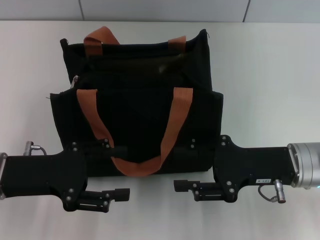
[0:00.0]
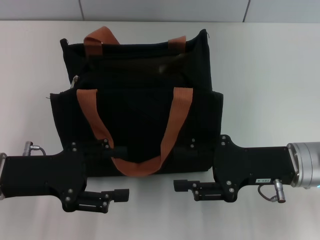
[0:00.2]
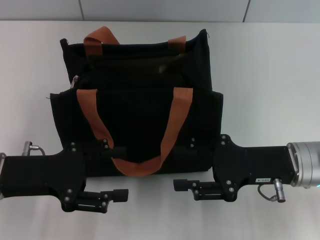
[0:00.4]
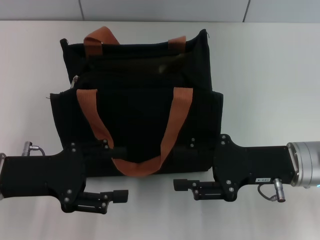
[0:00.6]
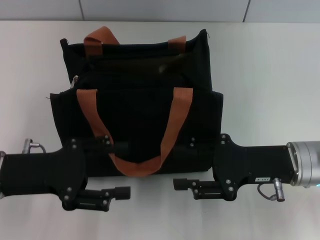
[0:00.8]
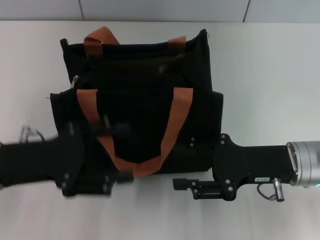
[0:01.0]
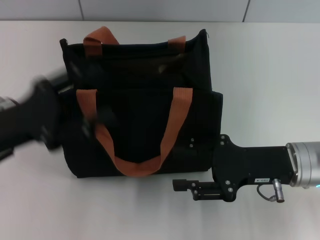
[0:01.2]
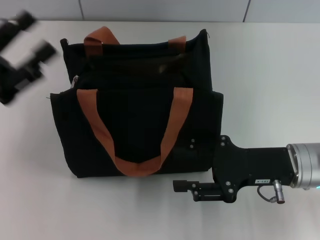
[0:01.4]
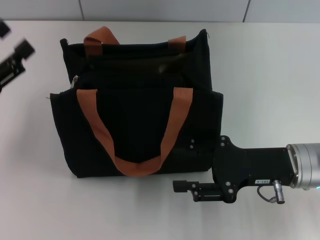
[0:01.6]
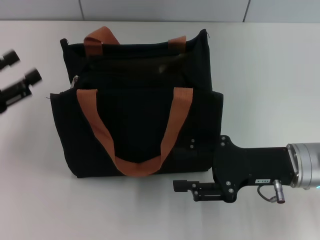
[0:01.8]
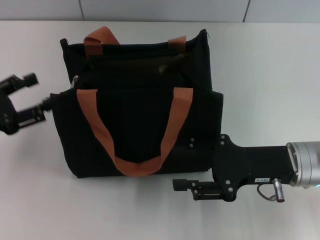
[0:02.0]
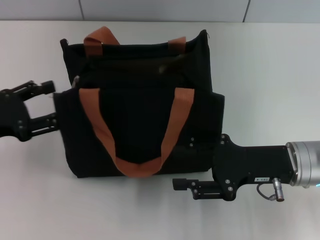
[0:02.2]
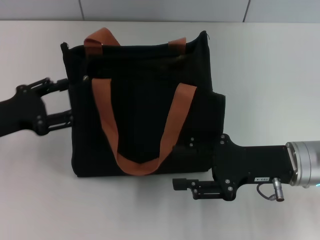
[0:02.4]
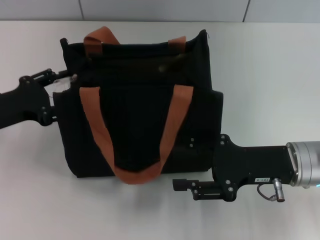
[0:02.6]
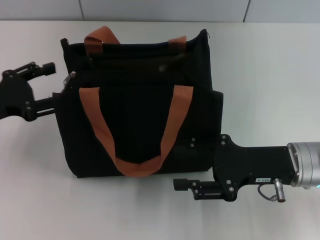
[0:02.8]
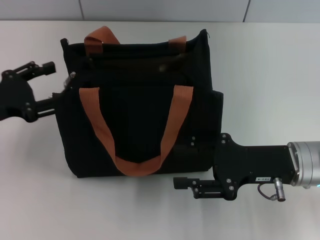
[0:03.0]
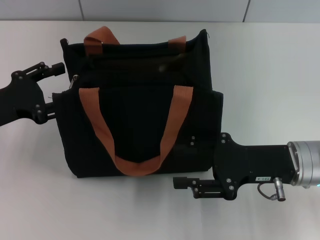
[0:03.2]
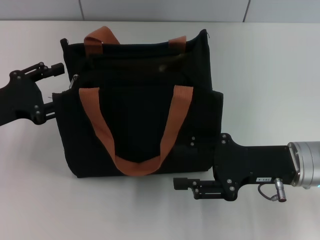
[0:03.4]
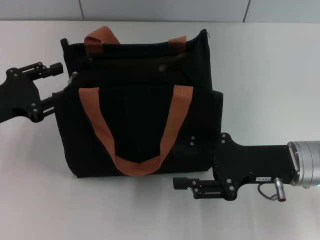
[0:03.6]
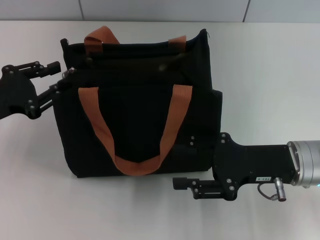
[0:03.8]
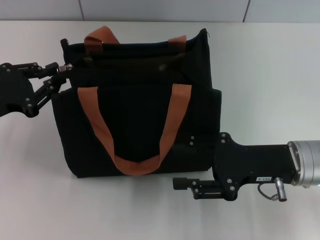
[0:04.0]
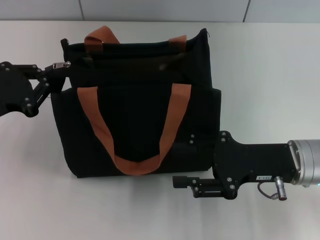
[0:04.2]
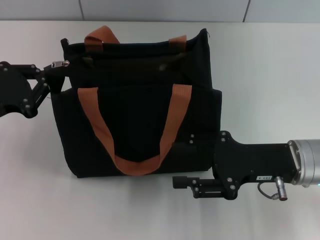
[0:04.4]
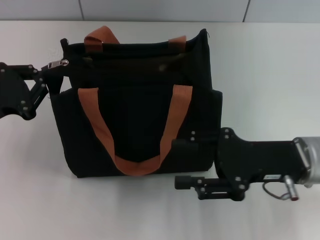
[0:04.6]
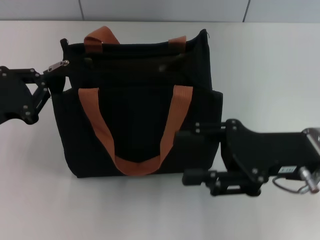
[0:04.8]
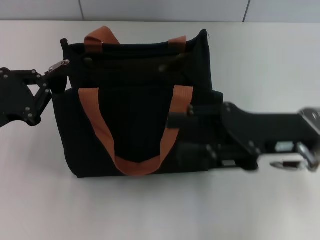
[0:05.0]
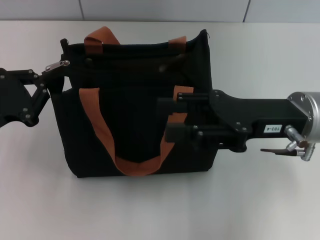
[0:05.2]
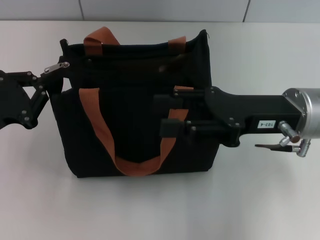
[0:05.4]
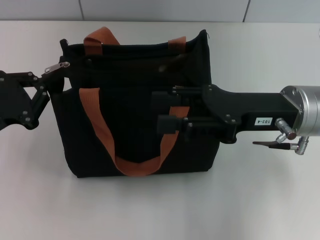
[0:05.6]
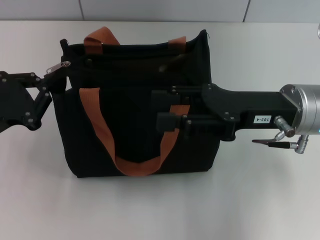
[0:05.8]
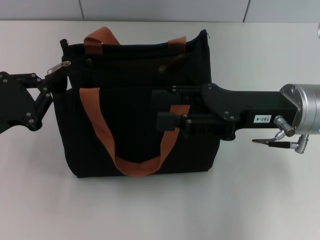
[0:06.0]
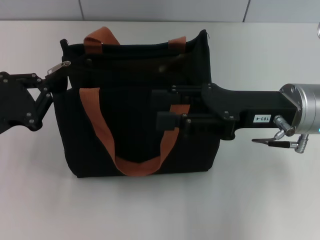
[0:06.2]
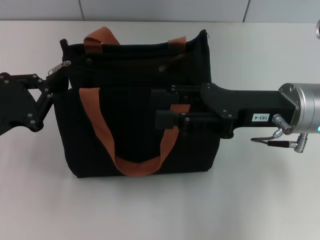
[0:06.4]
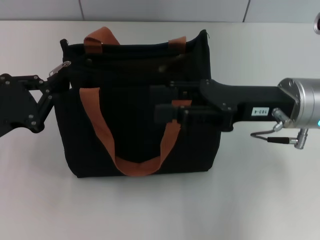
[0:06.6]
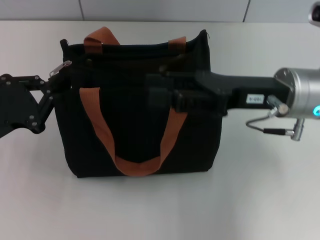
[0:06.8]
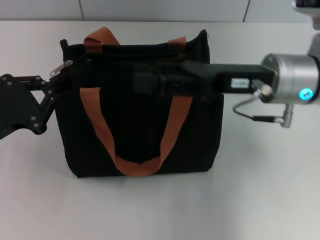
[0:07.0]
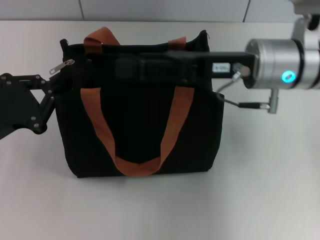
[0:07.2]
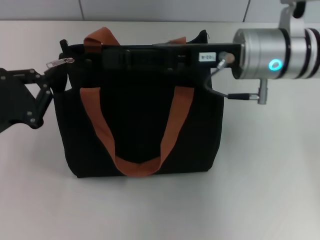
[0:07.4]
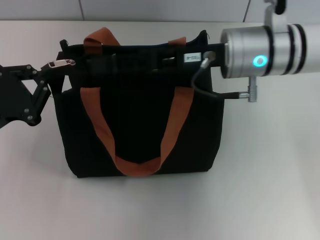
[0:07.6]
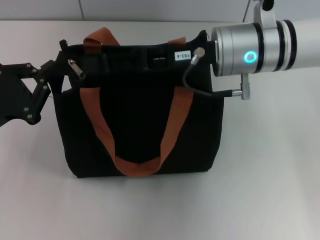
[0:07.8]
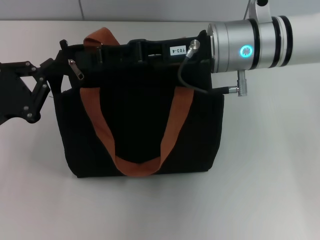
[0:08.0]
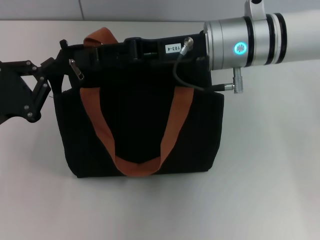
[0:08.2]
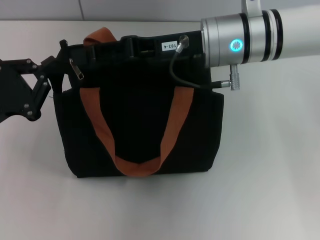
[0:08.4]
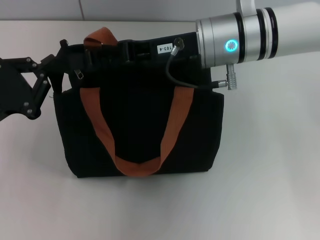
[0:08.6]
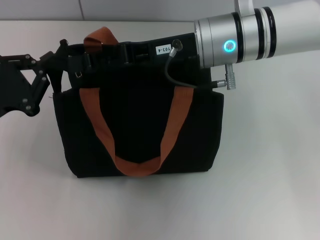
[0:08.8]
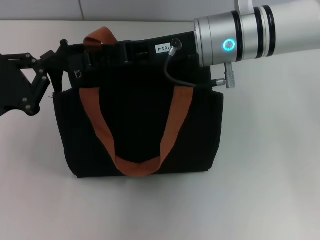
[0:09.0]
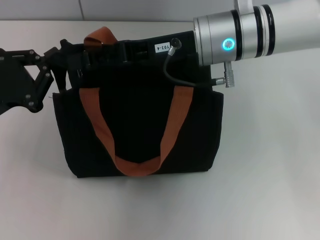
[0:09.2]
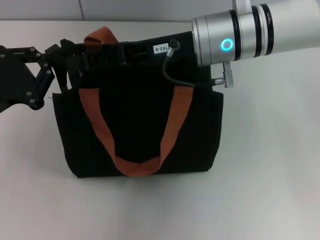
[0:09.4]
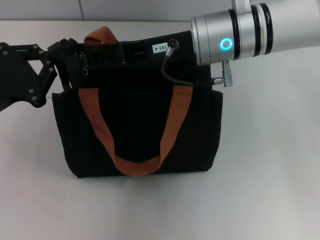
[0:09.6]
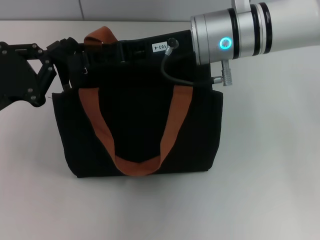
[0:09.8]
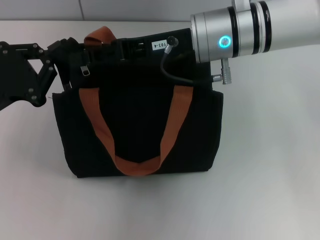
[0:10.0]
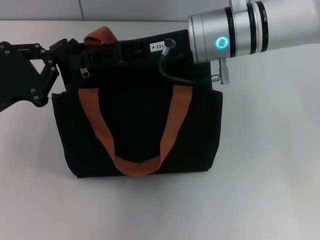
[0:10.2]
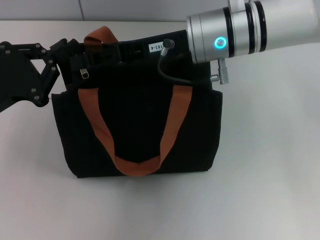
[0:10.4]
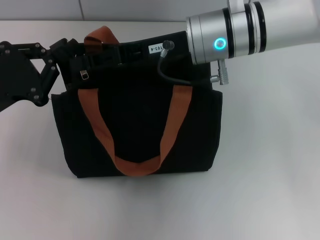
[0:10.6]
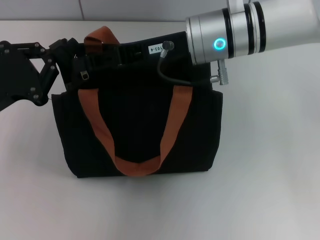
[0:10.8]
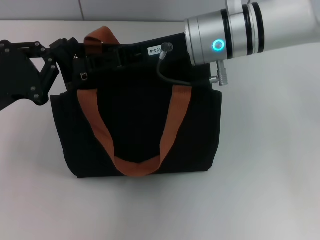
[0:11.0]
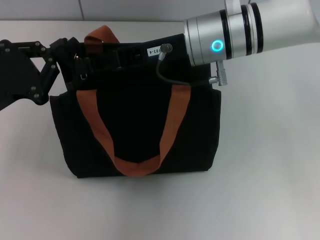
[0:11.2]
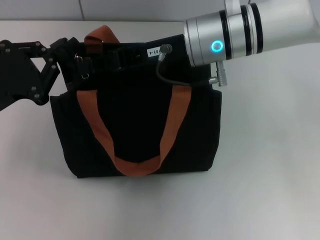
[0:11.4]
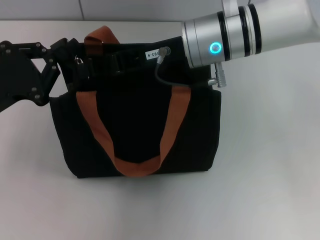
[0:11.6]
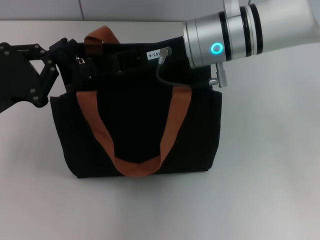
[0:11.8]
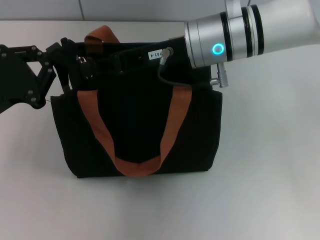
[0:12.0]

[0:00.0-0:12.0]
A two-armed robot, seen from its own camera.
0:00.0 to 0:01.6: The left gripper goes roughly 5 cm to the left.
0:03.0 to 0:04.4: The left gripper closes.
0:04.4 to 0:06.0: The right gripper moves upward, some 5 cm.
0:06.0 to 0:07.6: The right gripper is displaced to the left and forward by some 10 cm.
0:07.6 to 0:10.4: The grippers make only small movements.
0:10.4 to 0:12.0: The right gripper closes up.

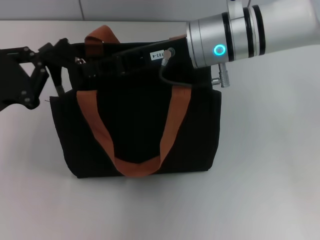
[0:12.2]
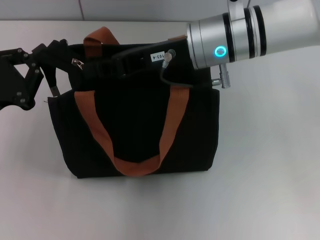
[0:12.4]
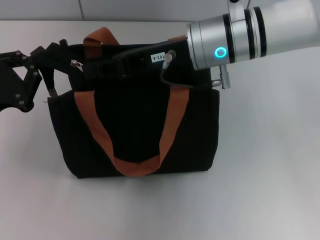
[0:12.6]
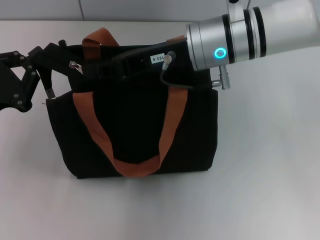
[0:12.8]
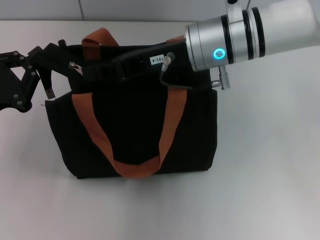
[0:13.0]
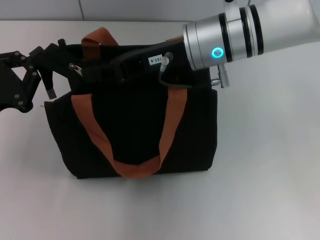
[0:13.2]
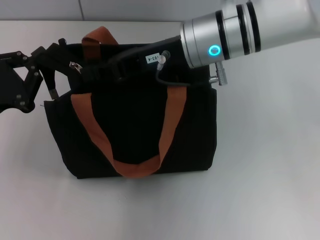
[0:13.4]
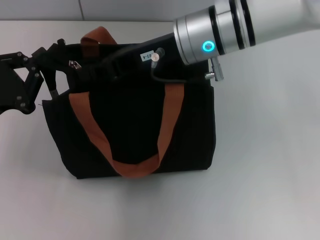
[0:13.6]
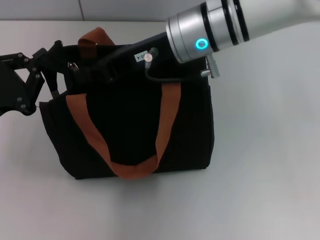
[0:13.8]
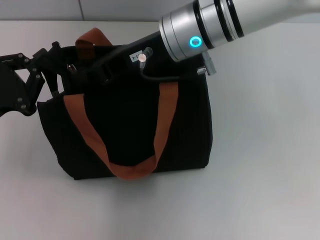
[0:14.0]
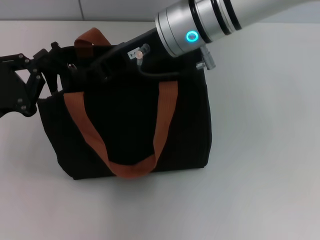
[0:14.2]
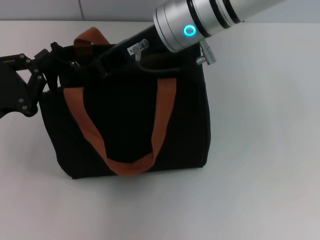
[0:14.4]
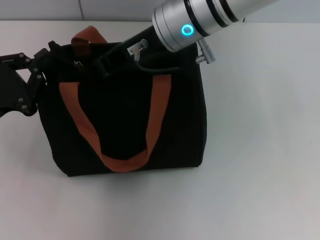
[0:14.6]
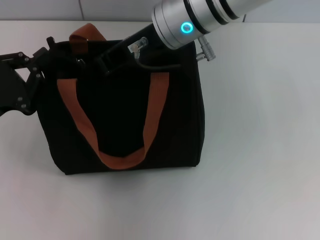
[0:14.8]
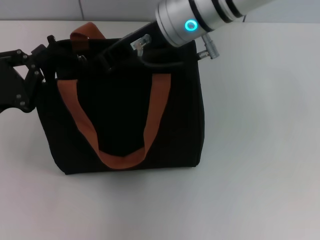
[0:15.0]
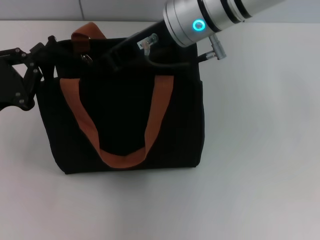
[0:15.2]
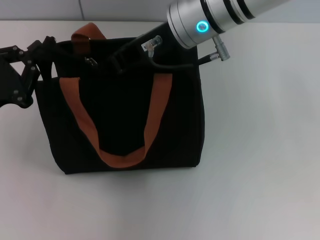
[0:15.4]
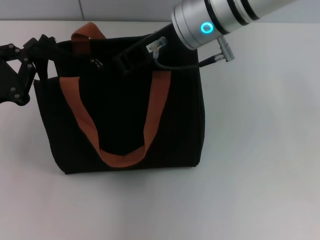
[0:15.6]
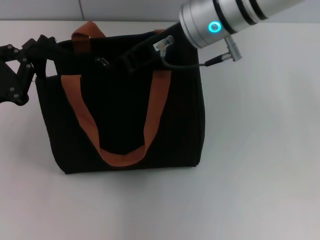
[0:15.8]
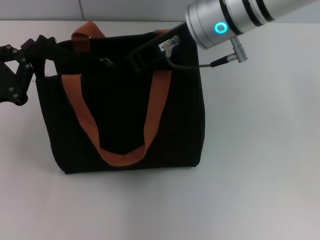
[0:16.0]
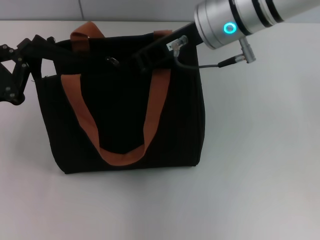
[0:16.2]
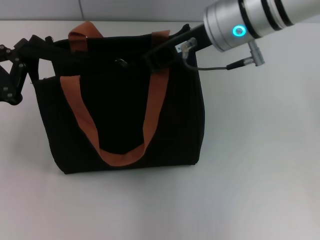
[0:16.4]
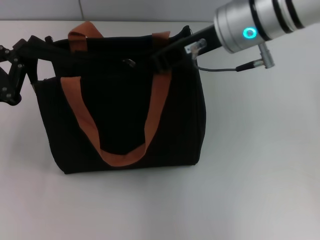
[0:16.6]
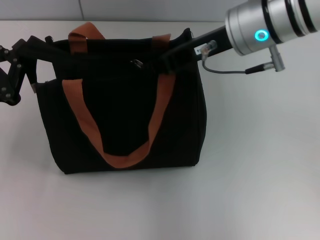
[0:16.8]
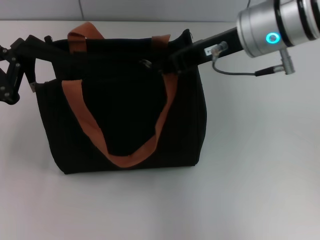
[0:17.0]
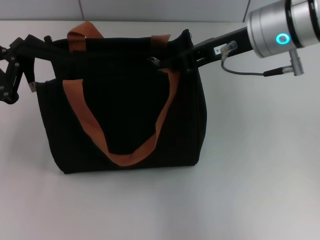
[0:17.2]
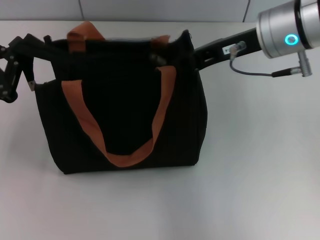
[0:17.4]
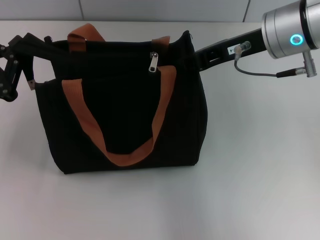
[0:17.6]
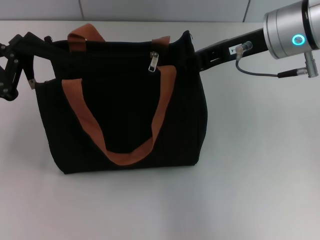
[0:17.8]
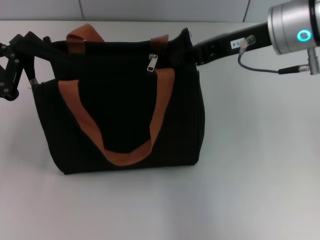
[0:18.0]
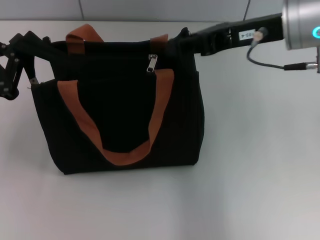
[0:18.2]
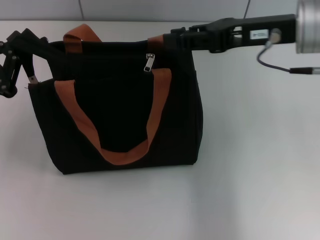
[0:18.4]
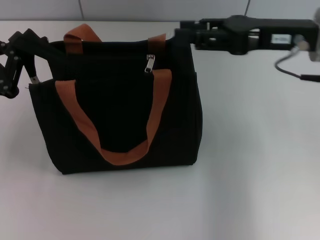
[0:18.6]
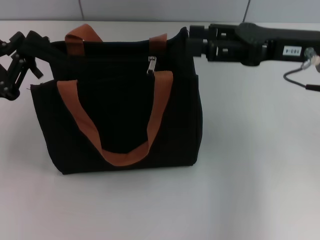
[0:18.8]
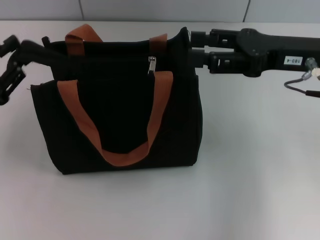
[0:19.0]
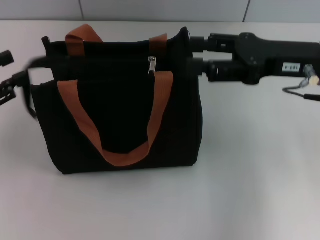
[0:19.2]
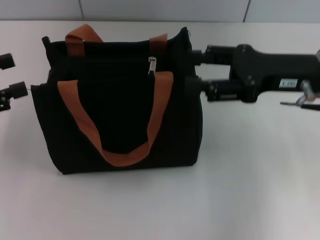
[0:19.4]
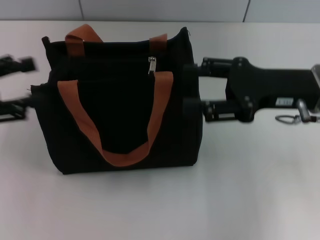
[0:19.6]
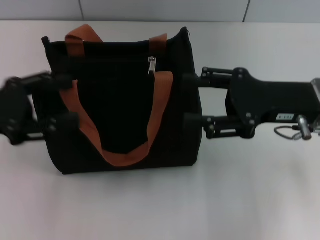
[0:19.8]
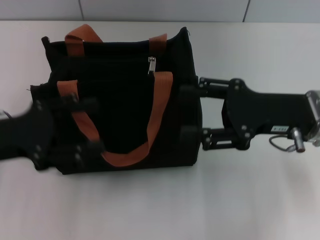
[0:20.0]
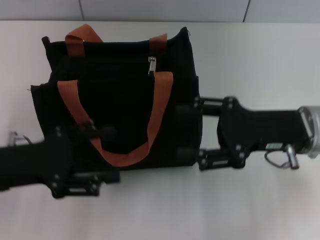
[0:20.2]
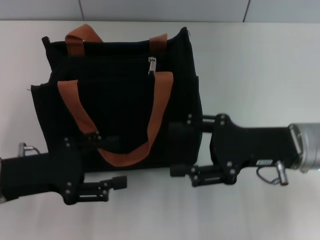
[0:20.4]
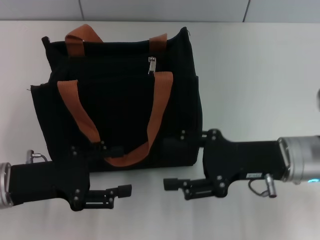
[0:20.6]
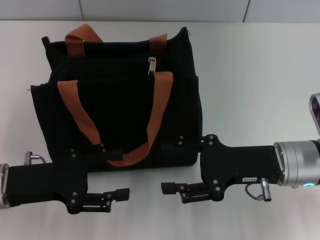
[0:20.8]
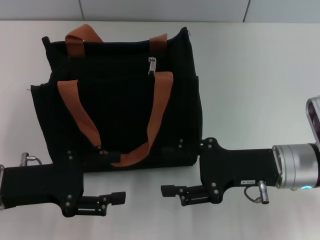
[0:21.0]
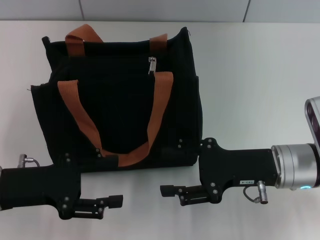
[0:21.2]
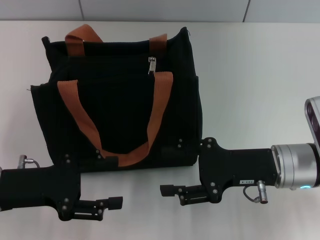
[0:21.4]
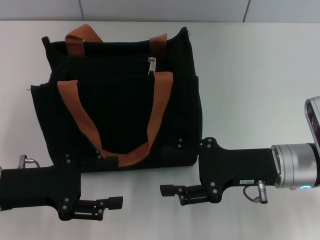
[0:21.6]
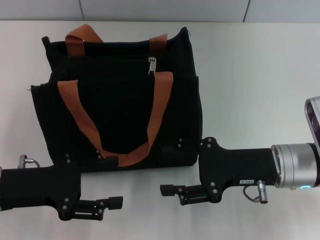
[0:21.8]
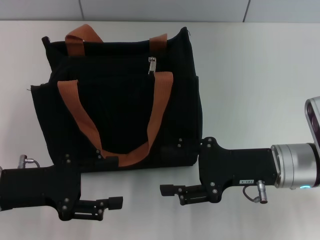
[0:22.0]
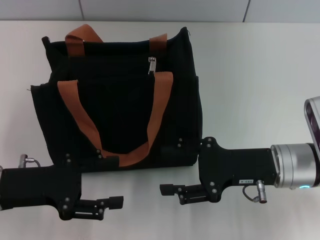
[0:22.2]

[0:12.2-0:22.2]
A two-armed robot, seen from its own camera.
Step, 0:12.2 to 0:17.6: Pull up the zipper with your right hand.
Step, 0:17.8 to 0:19.0: Grab the zipper with your left hand.
0:12.2 to 0:13.6: The grippers make only small movements.
0:15.0 to 0:16.4: The right gripper moves to the right, some 5 cm.
0:16.4 to 0:18.0: The right gripper shifts some 5 cm to the right.
0:18.0 to 0:19.4: The right gripper moves to the right and downward, roughly 10 cm, and opens; the left gripper goes roughly 10 cm upward and to the left, and opens up.
0:19.4 to 0:20.8: The right gripper heads downward and backward, covering some 10 cm; the left gripper is displaced to the right and downward by about 15 cm, and opens up.
0:20.8 to 0:22.2: Both grippers stay put.
